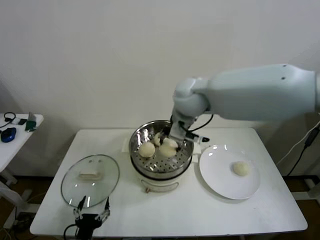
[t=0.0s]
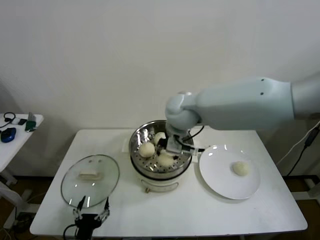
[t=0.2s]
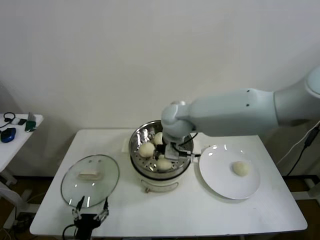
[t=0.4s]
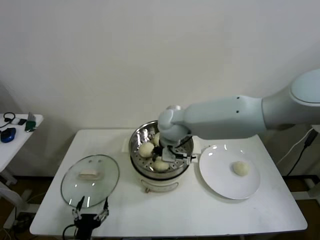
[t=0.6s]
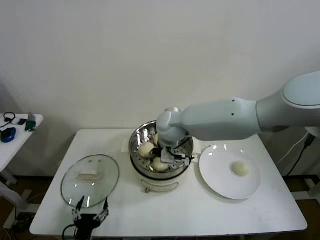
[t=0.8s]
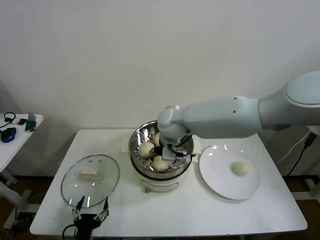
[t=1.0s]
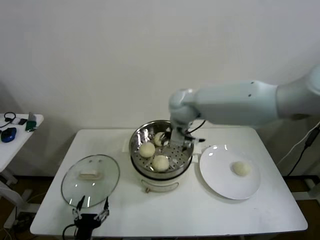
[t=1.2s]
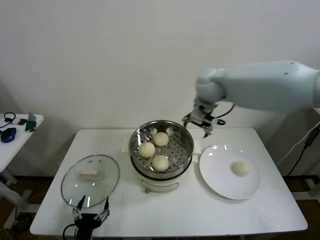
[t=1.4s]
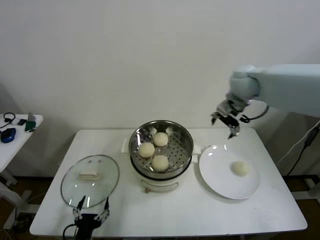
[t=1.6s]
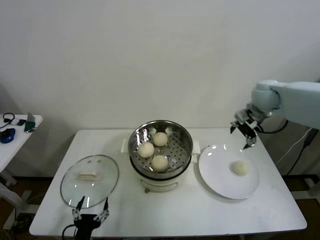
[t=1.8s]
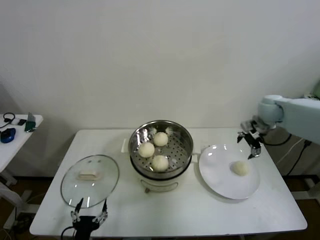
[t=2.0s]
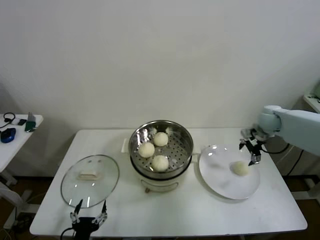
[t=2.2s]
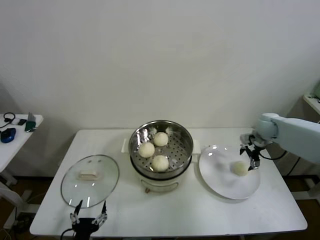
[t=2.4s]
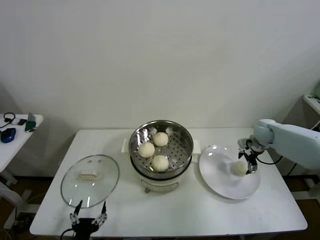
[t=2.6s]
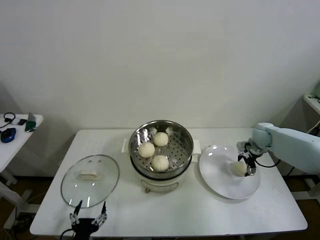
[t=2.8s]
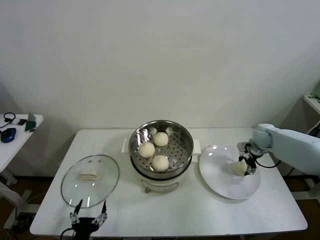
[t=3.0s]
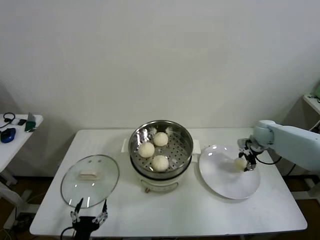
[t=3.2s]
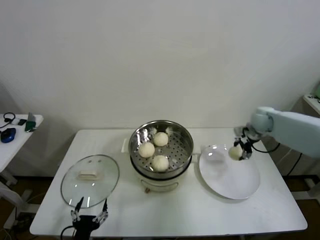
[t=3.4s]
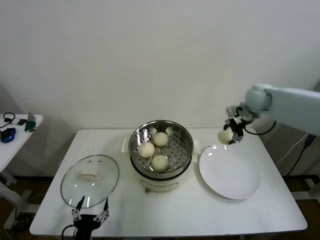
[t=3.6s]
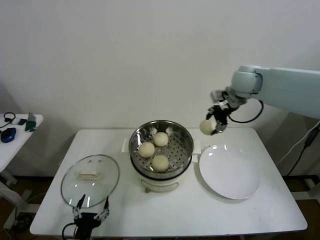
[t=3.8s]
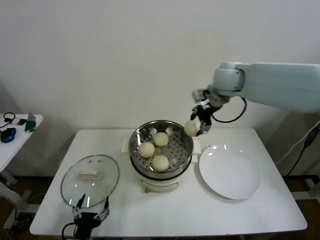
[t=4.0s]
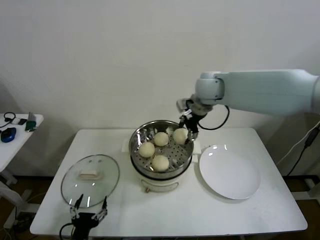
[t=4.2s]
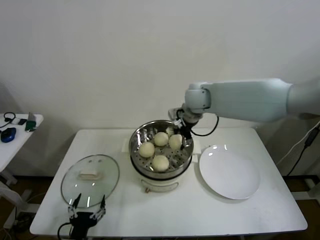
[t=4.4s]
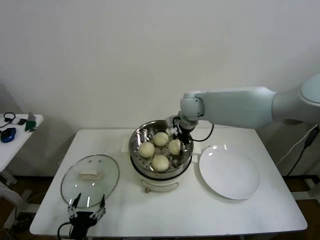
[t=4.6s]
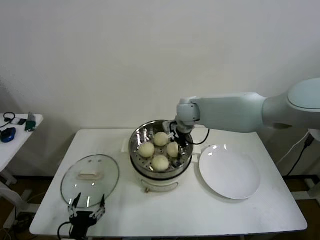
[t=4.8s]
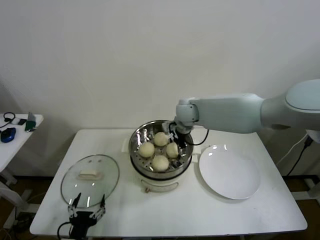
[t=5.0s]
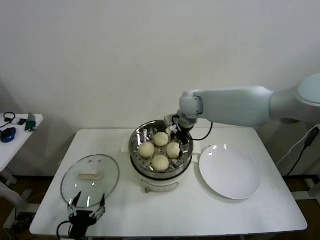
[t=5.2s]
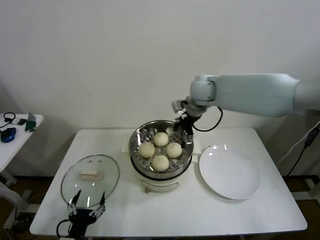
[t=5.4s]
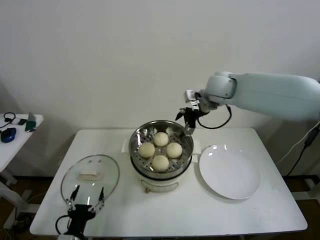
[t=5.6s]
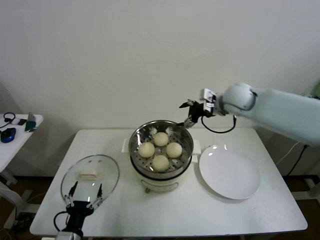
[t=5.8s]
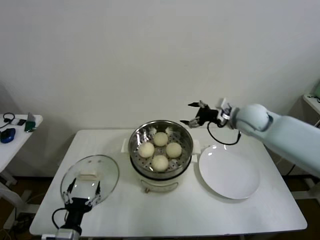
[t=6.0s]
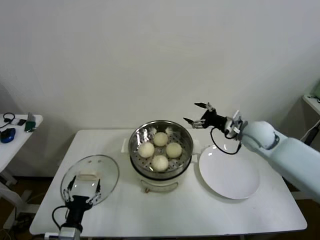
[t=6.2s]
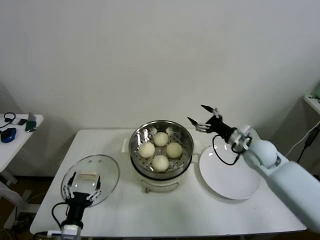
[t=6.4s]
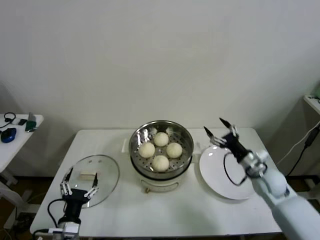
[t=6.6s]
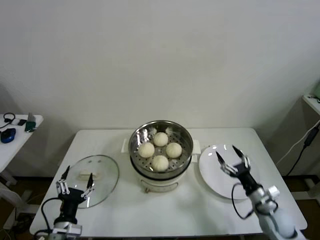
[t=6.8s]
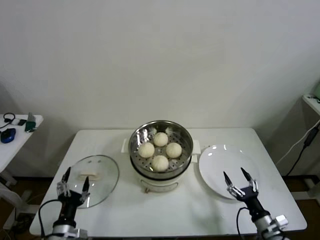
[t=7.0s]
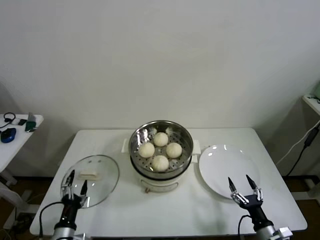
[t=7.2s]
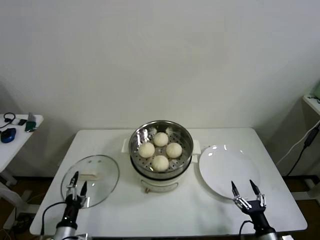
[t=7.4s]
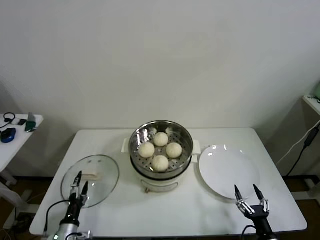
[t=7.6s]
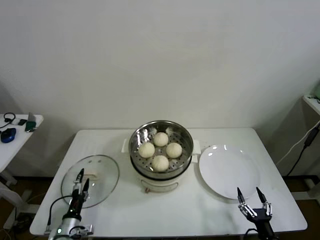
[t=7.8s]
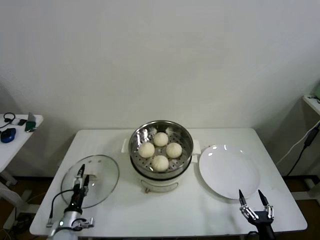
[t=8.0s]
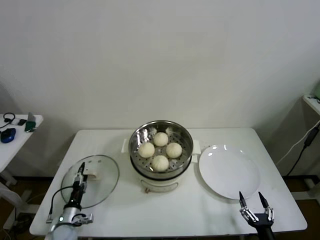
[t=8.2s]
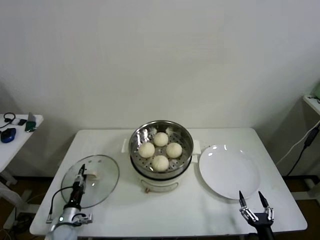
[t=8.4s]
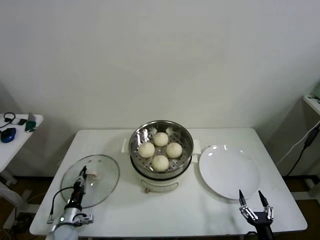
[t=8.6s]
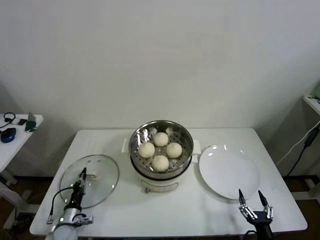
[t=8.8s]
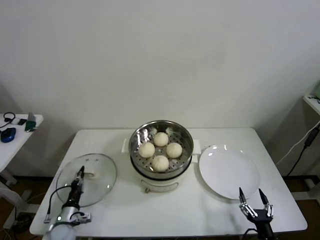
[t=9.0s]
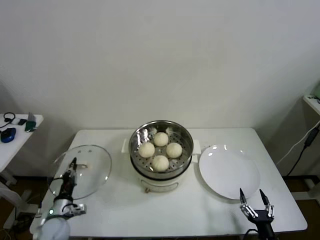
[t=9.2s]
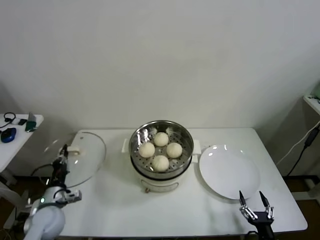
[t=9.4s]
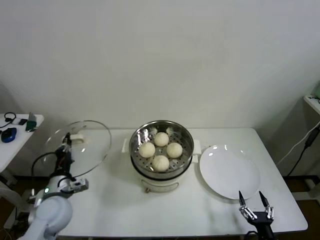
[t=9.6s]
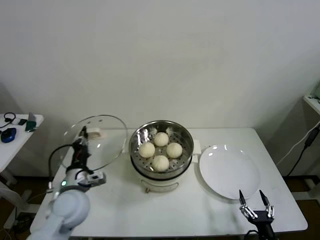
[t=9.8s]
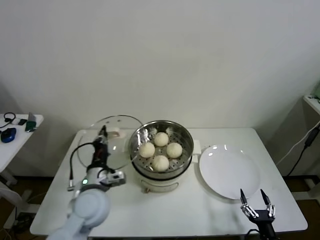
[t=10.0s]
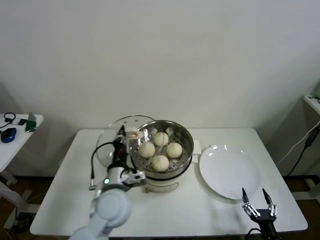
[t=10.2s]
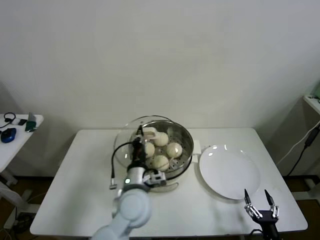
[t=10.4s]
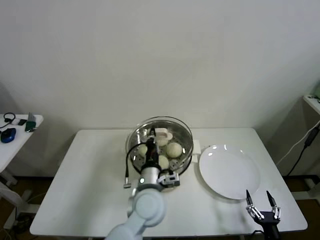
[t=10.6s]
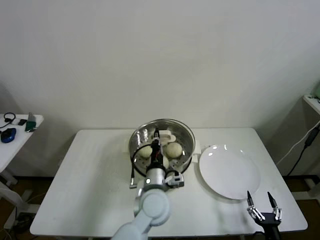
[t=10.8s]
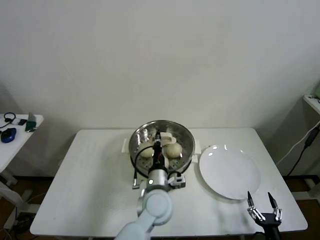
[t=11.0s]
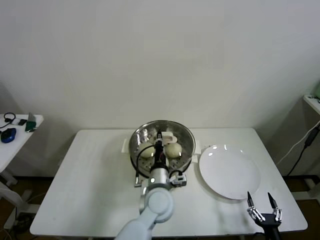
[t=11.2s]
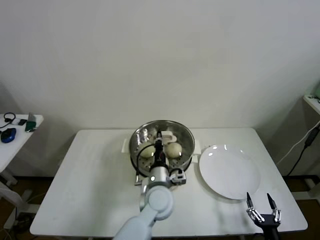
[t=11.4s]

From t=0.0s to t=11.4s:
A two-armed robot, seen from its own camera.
Step, from t=1.0s to t=3.0s: Grasp the baozi in the plate with right gripper.
Step, from t=3.2s to t=5.0s: Place the baozi on the steamer with right gripper.
Step, from t=5.2s to t=8.6s: Grasp the pot lid with left gripper.
From t=0.0s to t=1.4s: The right gripper travels forward by some 5 cm, goes downward and returns, some 10 cm each way, and opens its fingers.
From t=1.4s to t=2.8s: The right gripper is displaced to the right and downward by about 35 cm.
From t=2.8s to t=4.2s: The right gripper moves to the left and upward, approximately 35 cm, and closes up.
From t=4.2s to t=5.6s: The right gripper travels downward and back again, some 10 cm each way, and opens.
From t=5.6s to t=7.2s: The right gripper is displaced downward, backward and to the right by roughly 60 cm. The left gripper ends up roughly 5 cm from where it was.
From t=7.2s to t=8.6s: The right gripper goes roughly 5 cm backward, while the left gripper is displaced downward, forward and to the left by approximately 15 cm, and closes.
From t=8.6s to t=10.0s: The left gripper moves upward and to the right, some 30 cm.
From t=10.0s to t=11.4s: The left gripper shifts approximately 20 cm to the right.

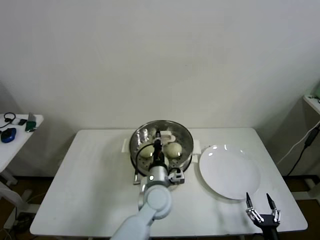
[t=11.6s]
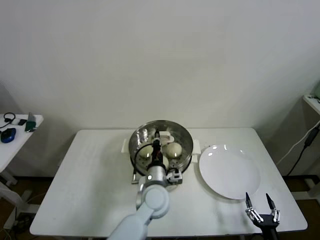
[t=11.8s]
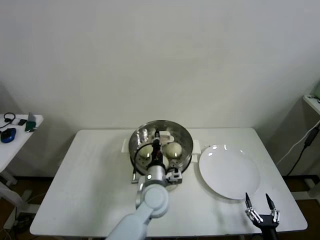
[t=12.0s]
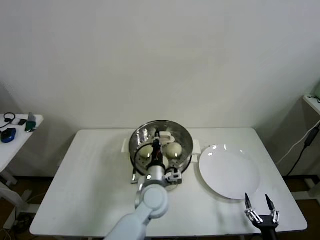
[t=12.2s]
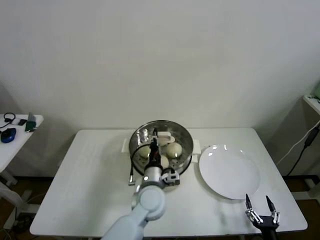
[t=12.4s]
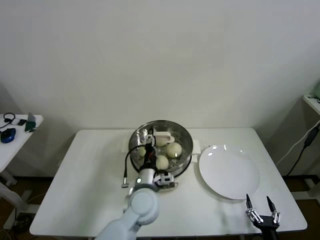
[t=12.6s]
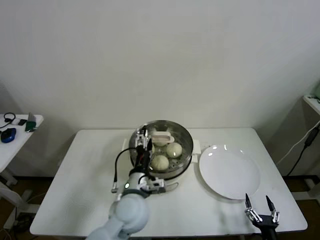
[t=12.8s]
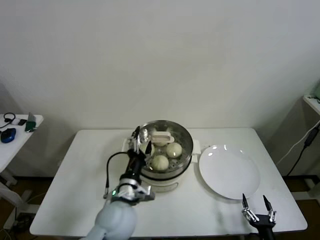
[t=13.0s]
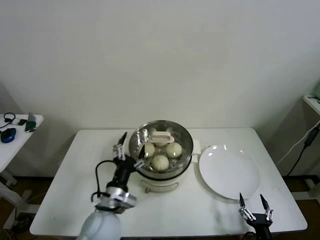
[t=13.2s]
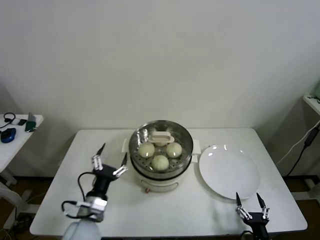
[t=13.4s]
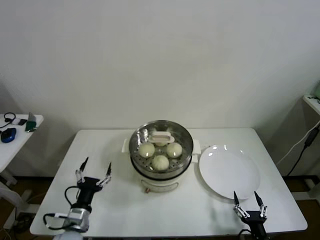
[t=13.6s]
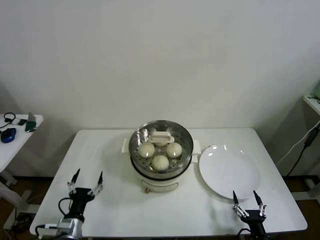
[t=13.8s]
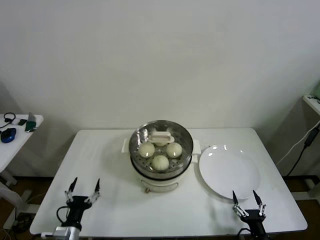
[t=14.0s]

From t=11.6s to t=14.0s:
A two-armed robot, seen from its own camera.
From t=11.6s to t=12.8s: The left gripper heads to the left, covering some 5 cm, and opens.
From t=12.8s to t=14.0s: The left gripper travels to the left, downward and backward by some 30 cm.
